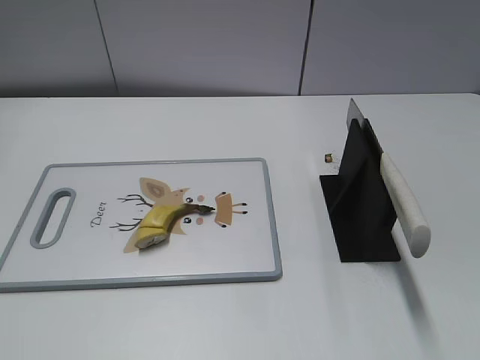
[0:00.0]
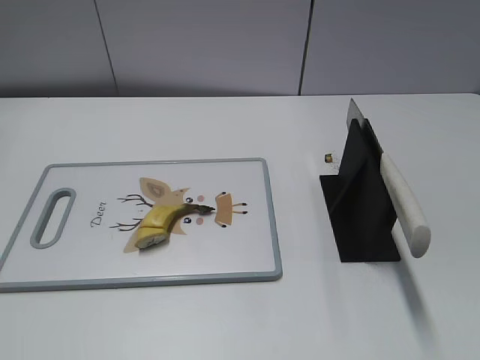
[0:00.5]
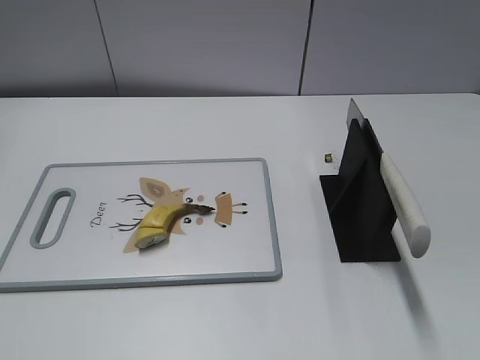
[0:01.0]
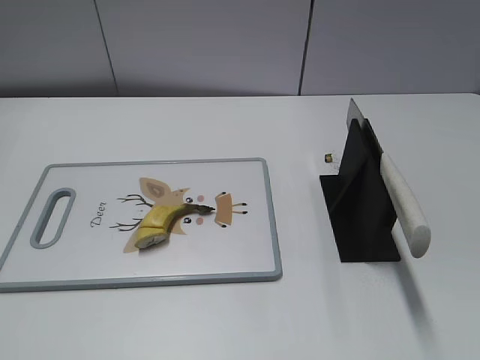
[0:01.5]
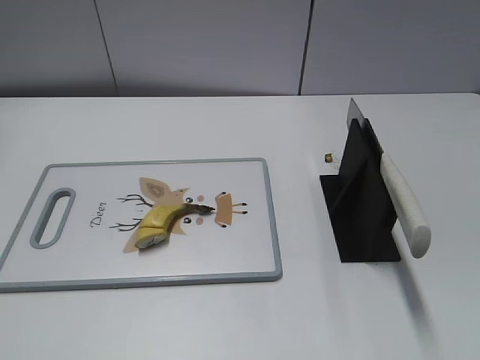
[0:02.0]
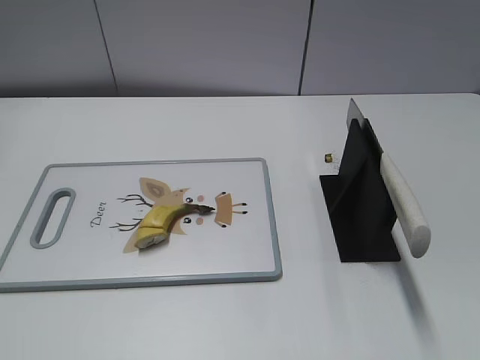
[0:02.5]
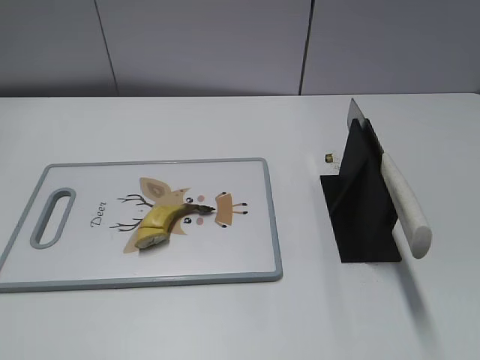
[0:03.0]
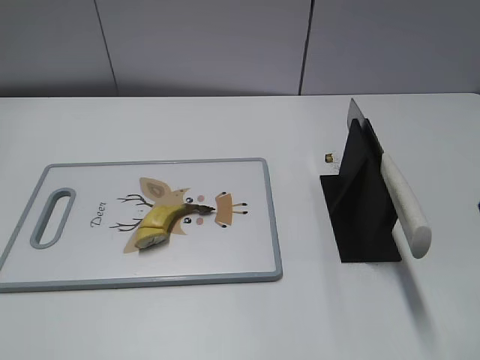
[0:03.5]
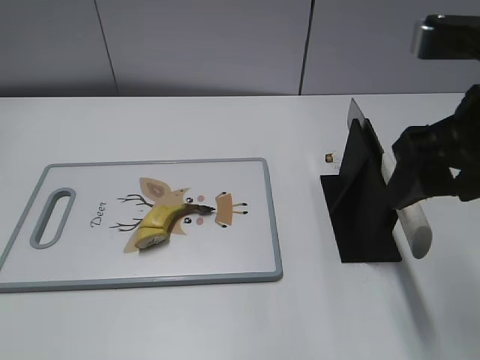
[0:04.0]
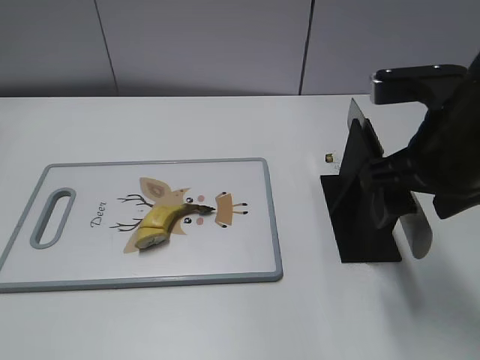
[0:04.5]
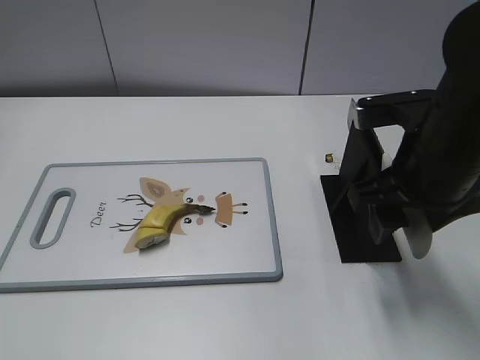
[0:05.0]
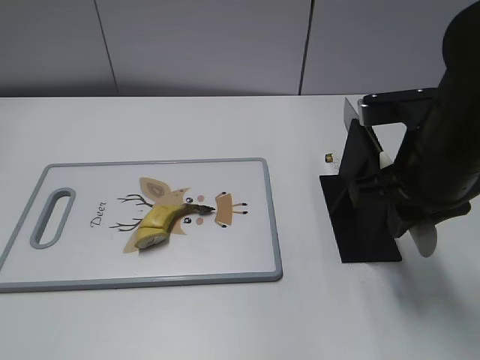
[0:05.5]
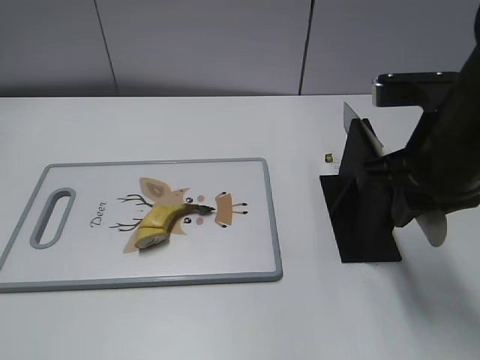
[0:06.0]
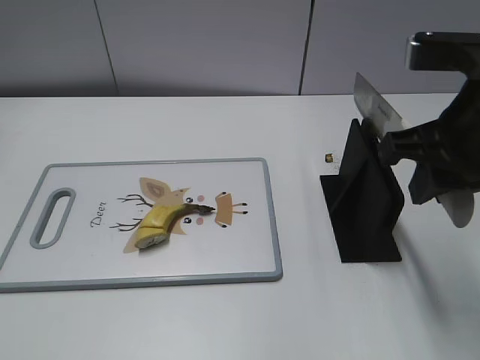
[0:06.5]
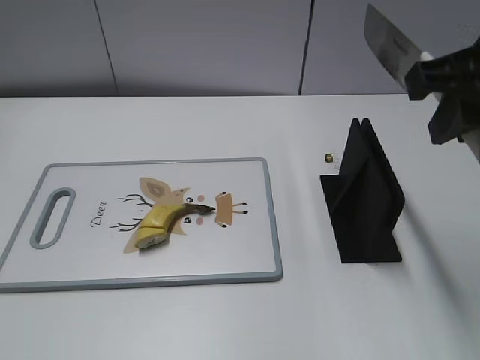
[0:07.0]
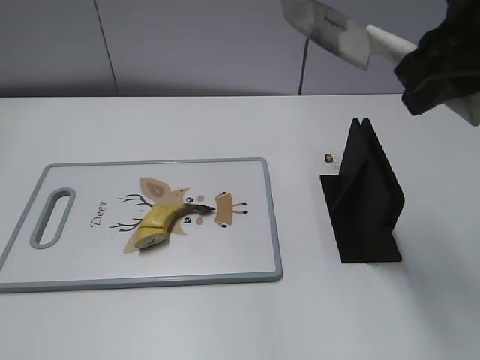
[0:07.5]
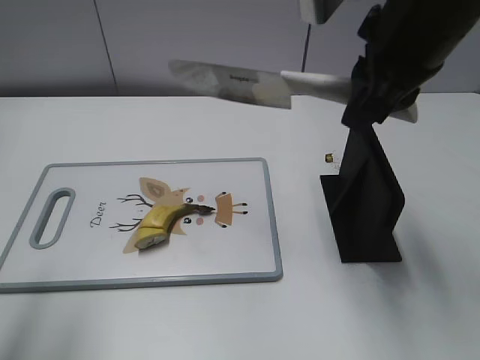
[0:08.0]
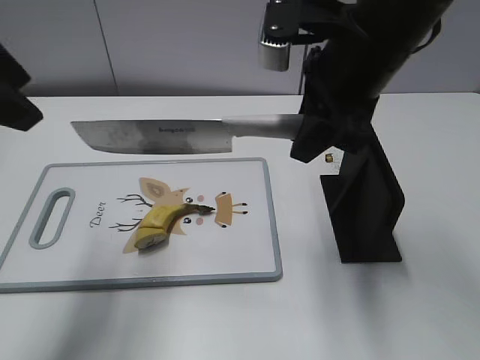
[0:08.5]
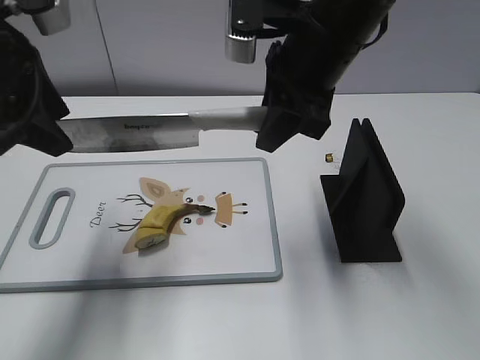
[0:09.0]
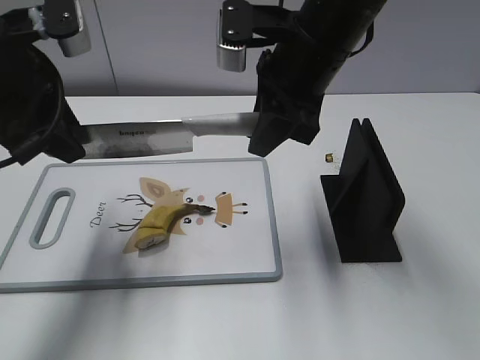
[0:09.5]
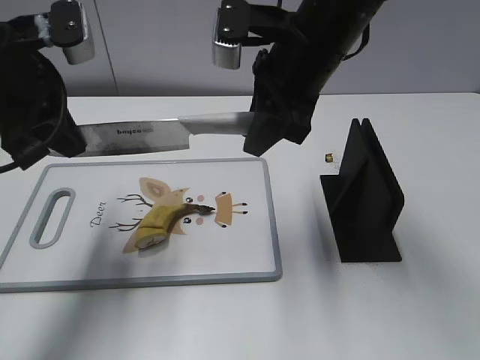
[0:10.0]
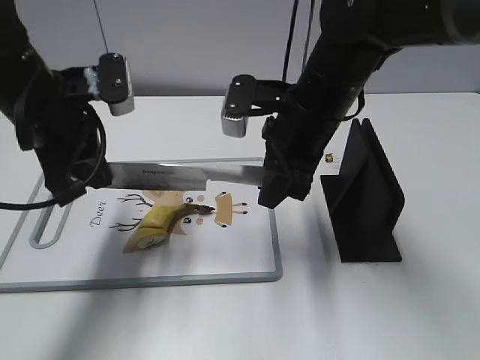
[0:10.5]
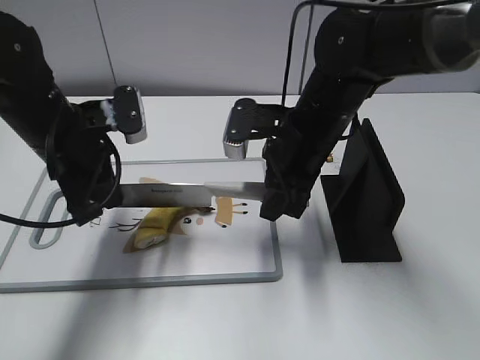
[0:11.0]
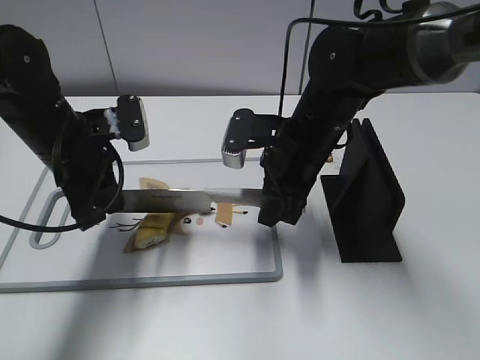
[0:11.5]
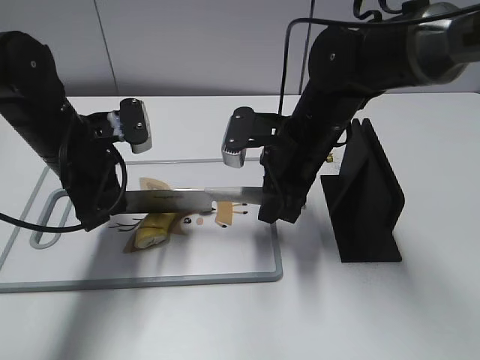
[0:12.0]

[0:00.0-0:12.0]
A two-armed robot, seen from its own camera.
Task of the whole recording: cut banana.
Step, 0:00.0 to 0:07.0: Grab the knife handle with your right hand.
0:02.0 to 0:04.0: The right gripper moves forward and to the left, roughly 25 cm.
0:04.0 to 0:06.0: The right gripper moves downward, roughly 5 cm, and closes up.
0:06.0 to 0:08.0: The left gripper moves forward and upward, roughly 15 cm. The right gripper heads upward, covering roughly 10 cm.
0:08.0 to 0:10.0: The right gripper shifts some 10 cm to the left, downward and forward. Meanwhile the left gripper goes about 20 cm forward, downward and to the right, and closes up.
0:10.0 to 0:12.0: The two grippers go approximately 10 cm downward.

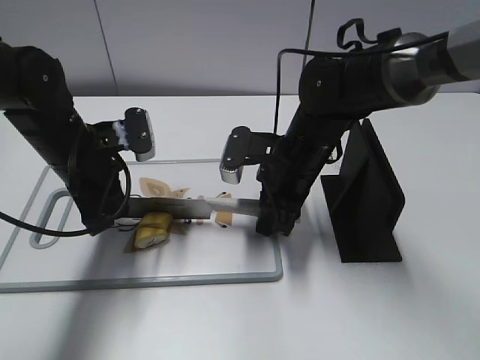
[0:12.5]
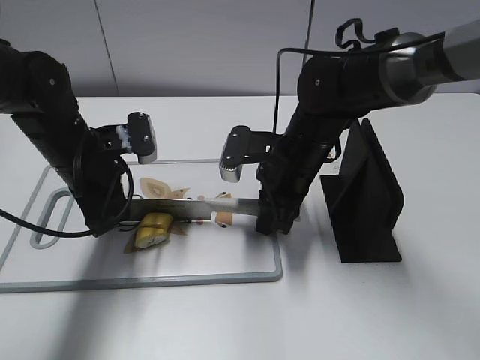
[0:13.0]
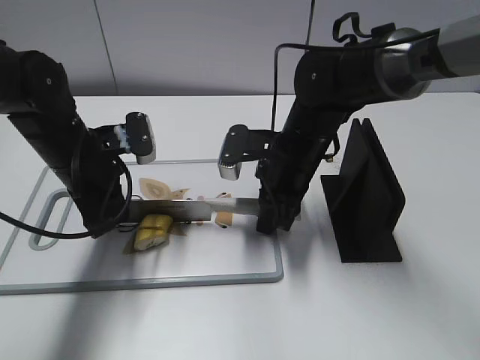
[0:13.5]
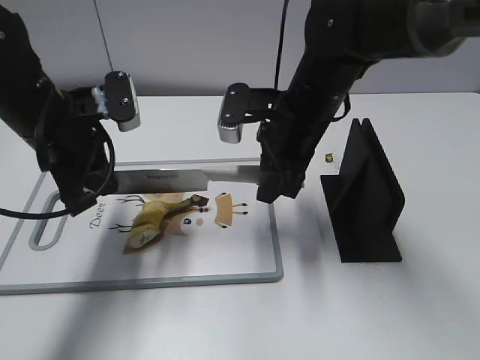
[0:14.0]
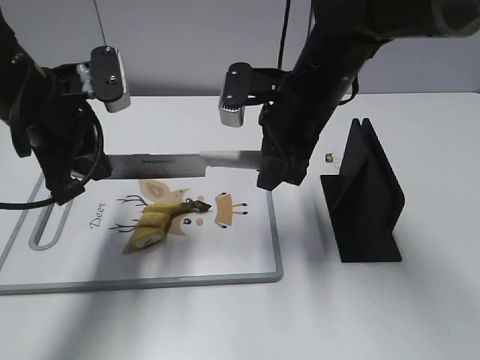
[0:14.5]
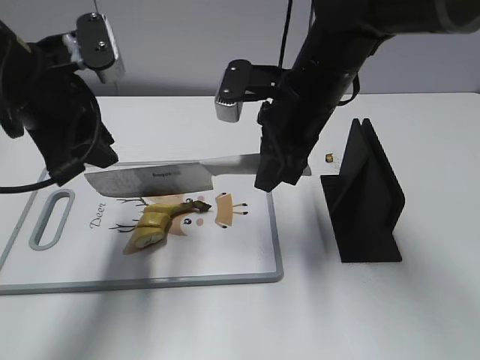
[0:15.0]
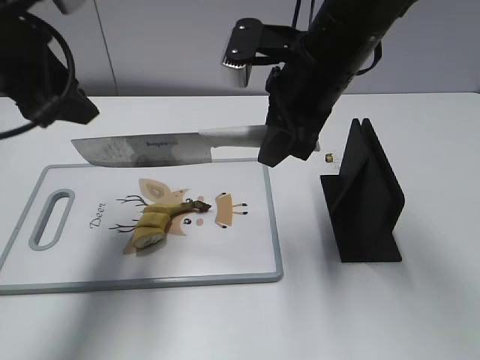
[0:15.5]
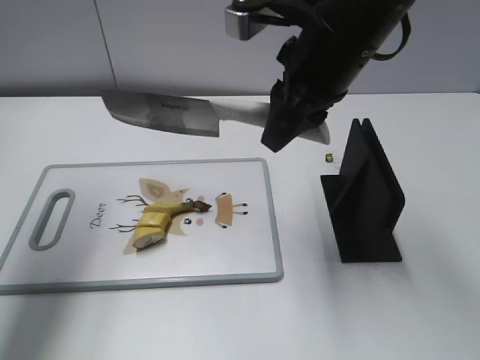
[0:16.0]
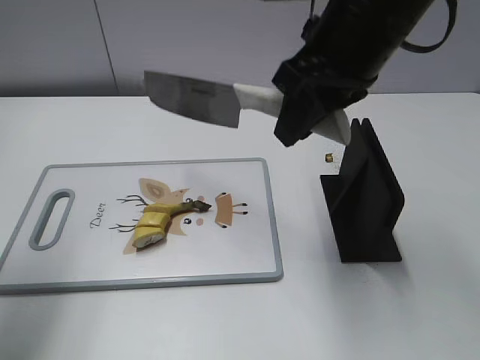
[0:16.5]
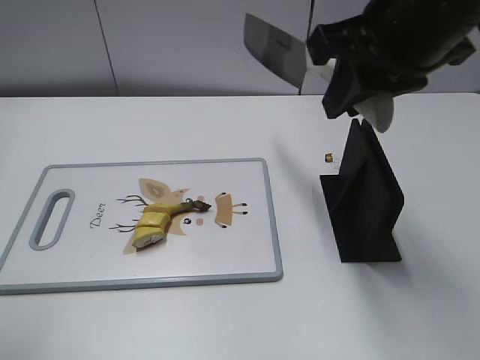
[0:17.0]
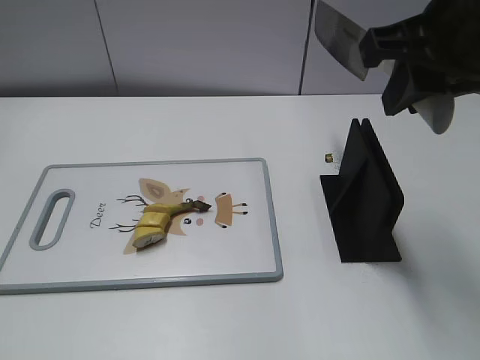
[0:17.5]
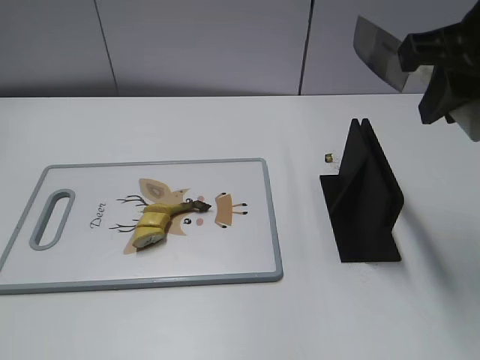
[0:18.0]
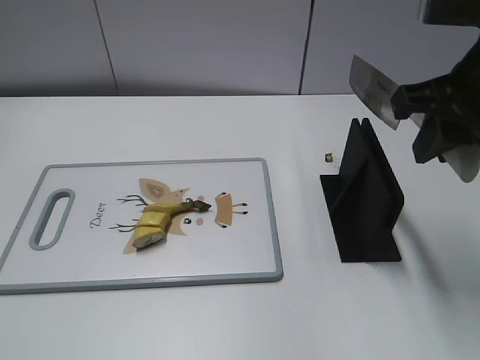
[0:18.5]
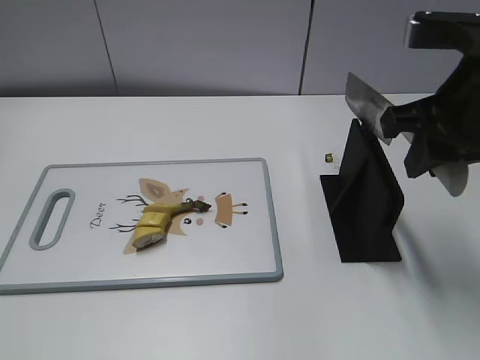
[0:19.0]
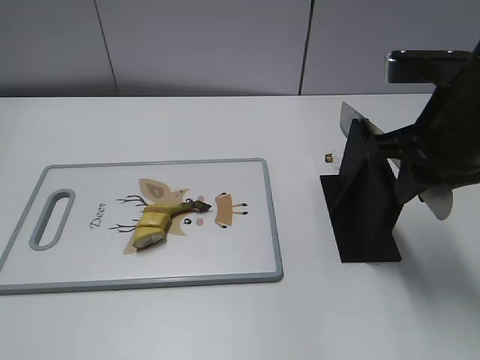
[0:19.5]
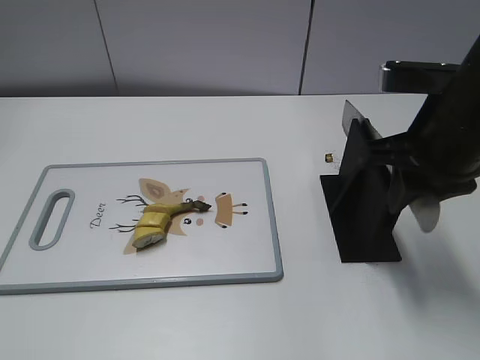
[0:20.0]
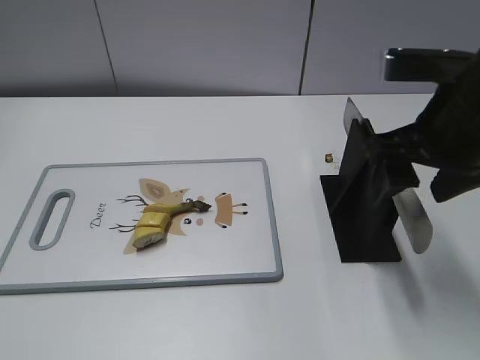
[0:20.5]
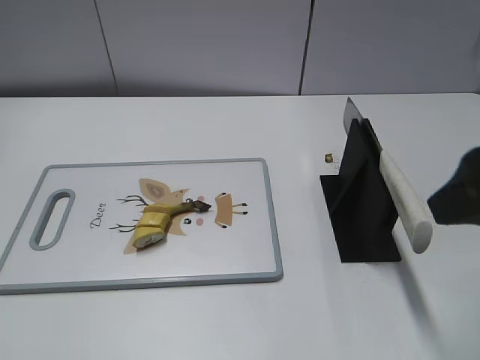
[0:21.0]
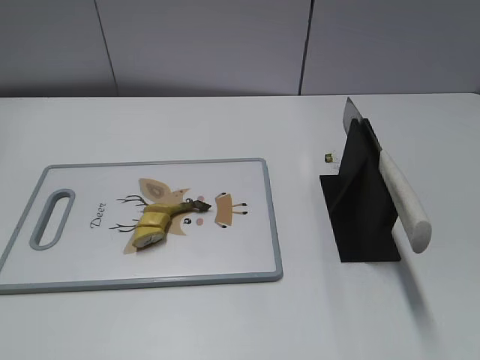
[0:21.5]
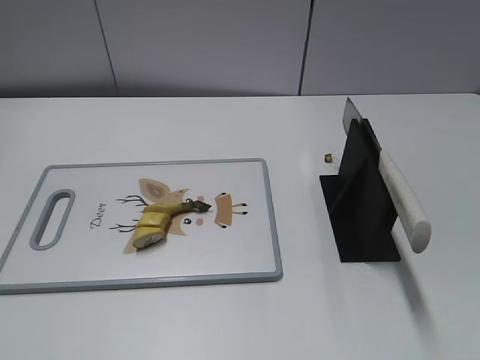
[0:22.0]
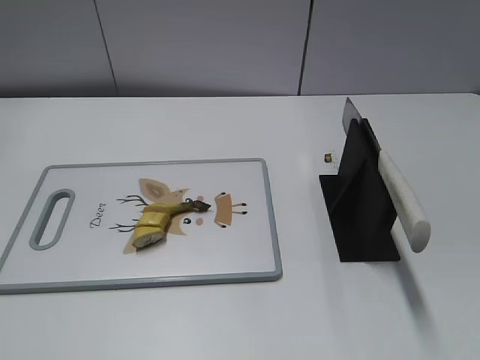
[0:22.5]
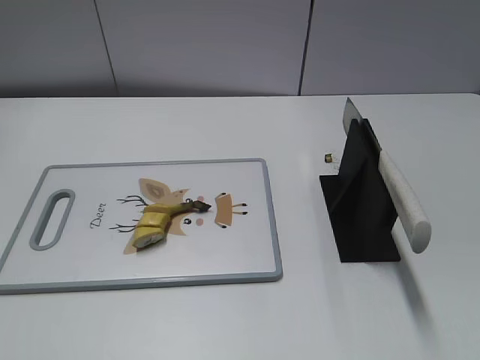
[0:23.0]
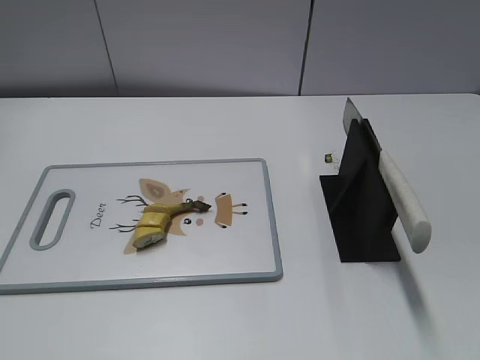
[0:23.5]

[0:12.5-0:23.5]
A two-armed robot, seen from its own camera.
Task of the whole recording: cut banana.
Step, 0:12.5 to 0:16.5: Cut the banana with your right hand.
Step, 0:17.5 to 0:18.5: Secure the blade with your left hand.
Step, 0:19.0 to 0:23.5: Place the knife on the storage rack with your right hand.
0:12.5 to 0:14.5: The two grippers go some 10 cm upward.
0:14.5 to 0:16.0: The left gripper goes some 15 cm upward and to the left, and opens. The right gripper goes approximately 10 cm upward.
0:16.0 to 0:18.0: The right gripper shifts roughly 15 cm to the right, backward and upward; the left gripper travels backward by some 30 cm.
0:18.0 to 0:20.0: The right gripper shifts approximately 10 cm downward.
0:20.0 to 0:21.5: The right gripper shifts roughly 20 cm backward, and opens.

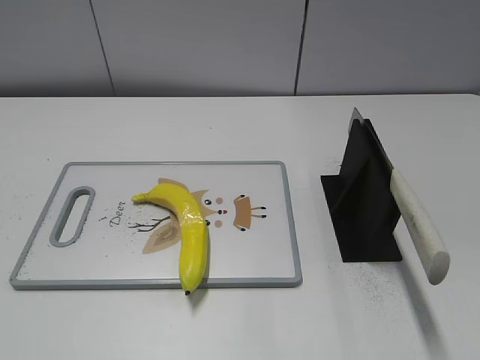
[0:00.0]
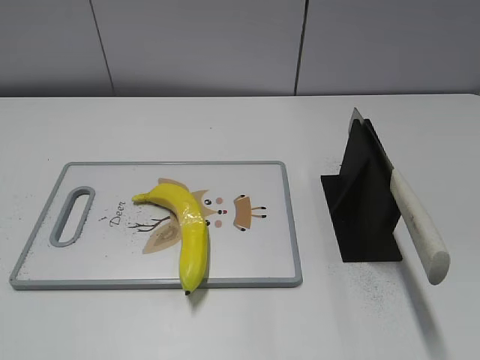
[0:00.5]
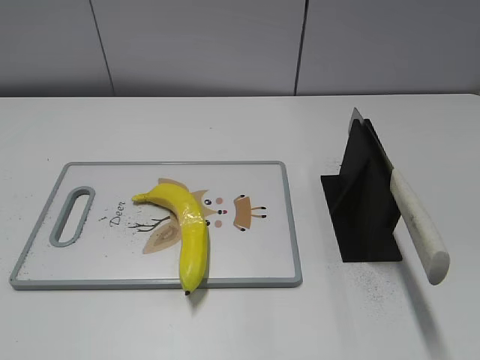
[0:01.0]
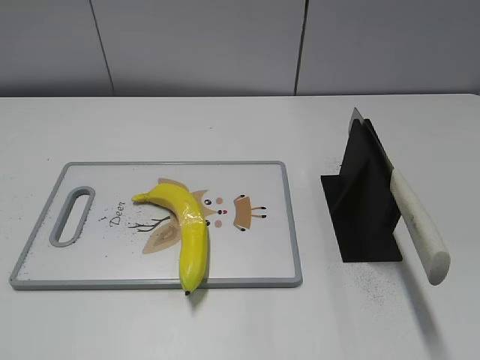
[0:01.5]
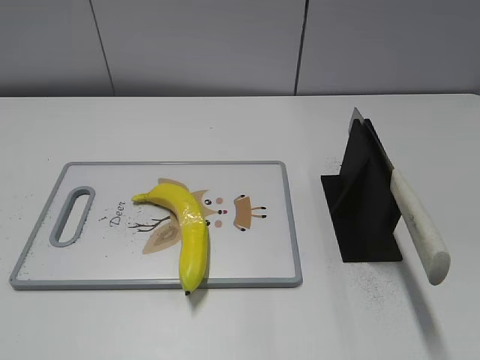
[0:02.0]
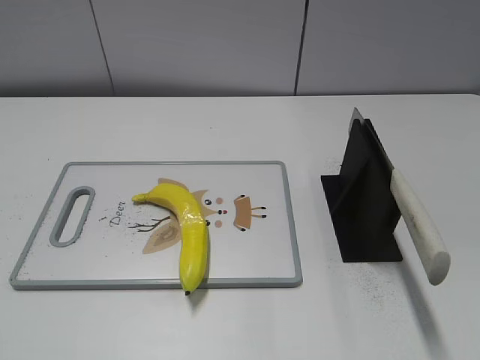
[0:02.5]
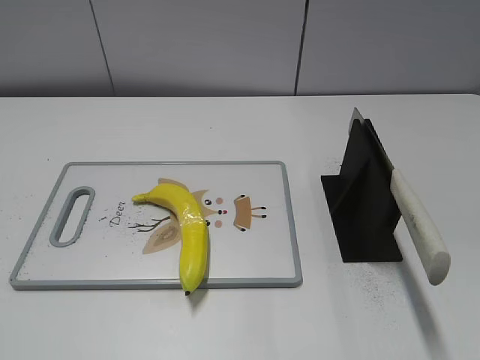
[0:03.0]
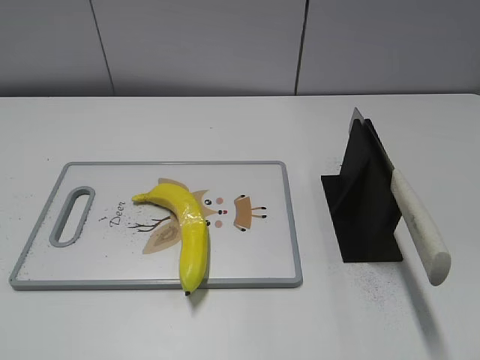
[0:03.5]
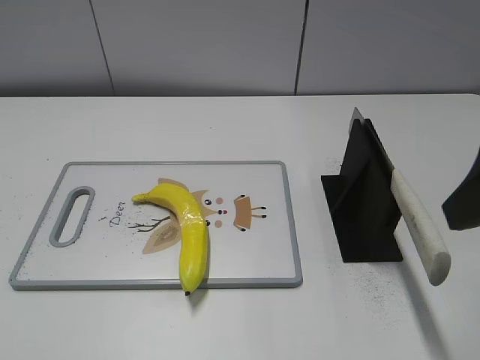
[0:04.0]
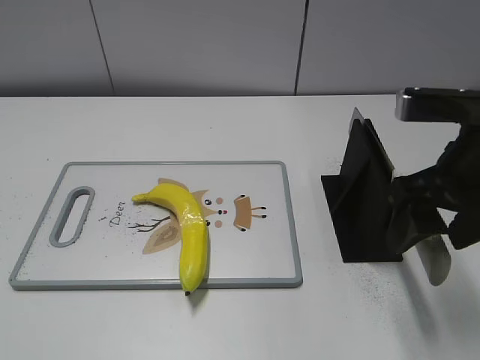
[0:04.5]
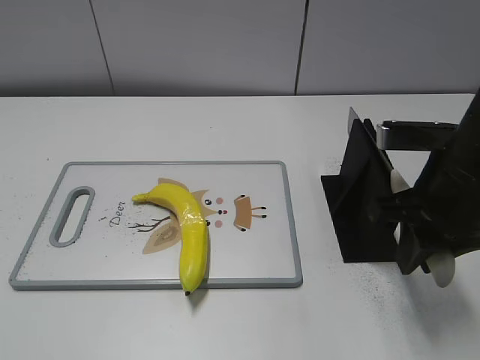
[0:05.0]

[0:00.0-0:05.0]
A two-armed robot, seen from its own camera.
Task of the whole recording: cut plastic banana.
0:02.5 to 0:05.0: The right gripper is displaced forward, to the left and downward by some 25 cm, and closes its fingers.
